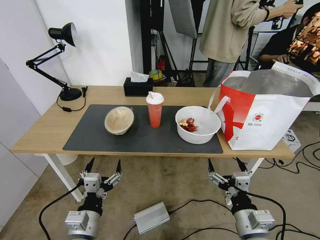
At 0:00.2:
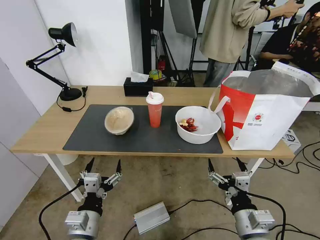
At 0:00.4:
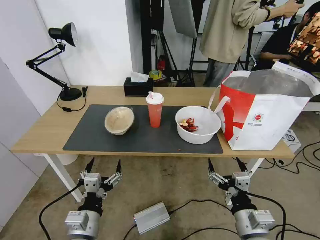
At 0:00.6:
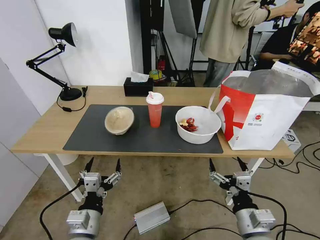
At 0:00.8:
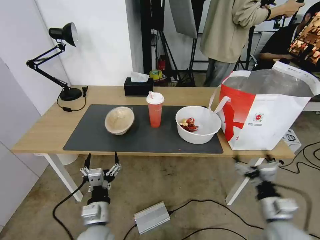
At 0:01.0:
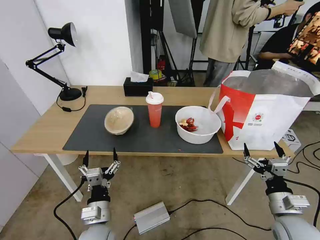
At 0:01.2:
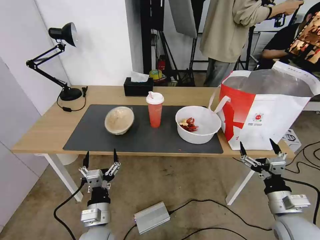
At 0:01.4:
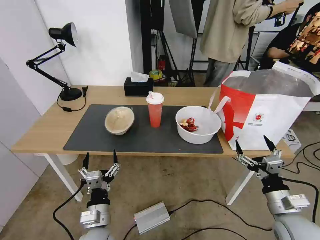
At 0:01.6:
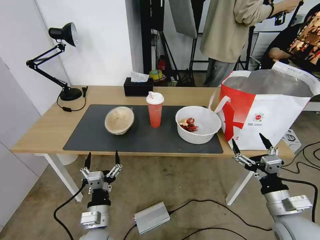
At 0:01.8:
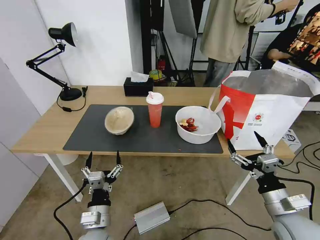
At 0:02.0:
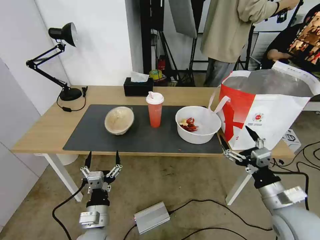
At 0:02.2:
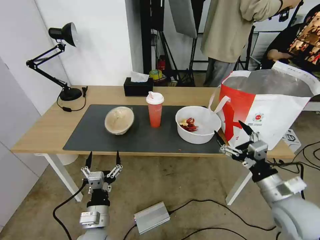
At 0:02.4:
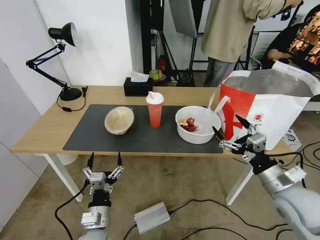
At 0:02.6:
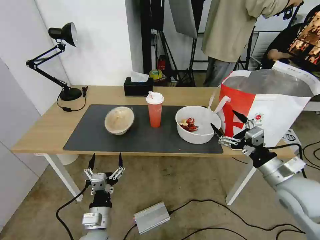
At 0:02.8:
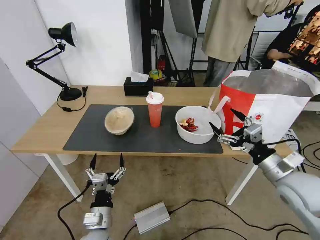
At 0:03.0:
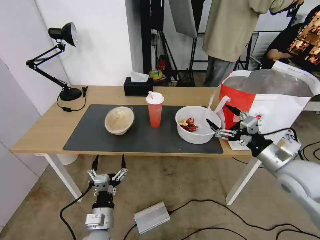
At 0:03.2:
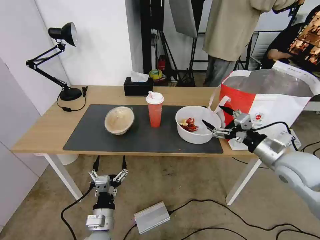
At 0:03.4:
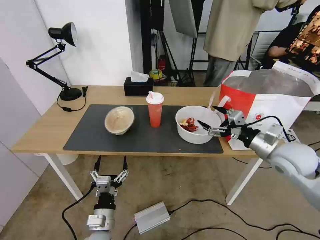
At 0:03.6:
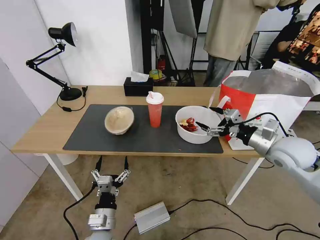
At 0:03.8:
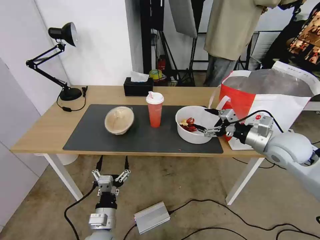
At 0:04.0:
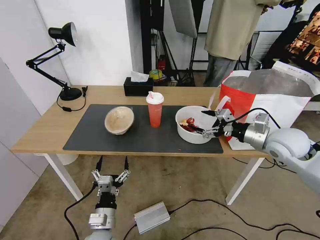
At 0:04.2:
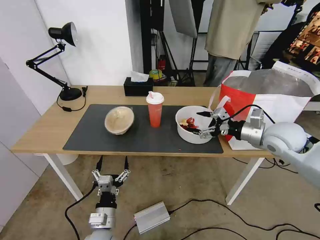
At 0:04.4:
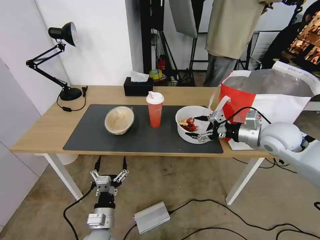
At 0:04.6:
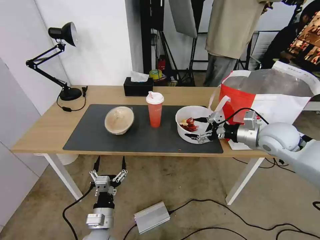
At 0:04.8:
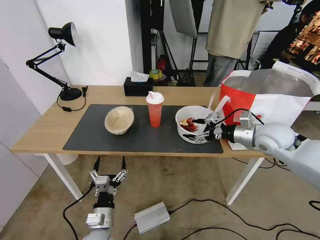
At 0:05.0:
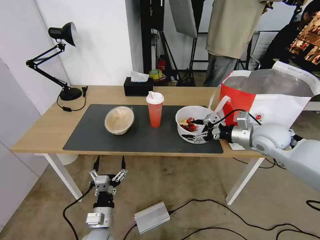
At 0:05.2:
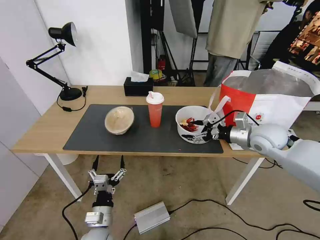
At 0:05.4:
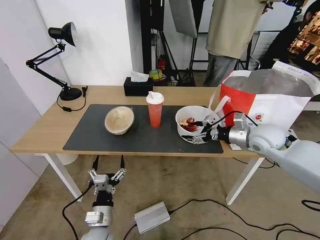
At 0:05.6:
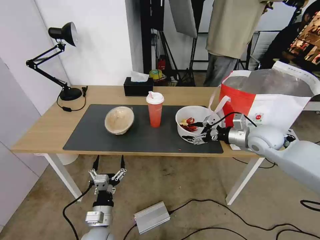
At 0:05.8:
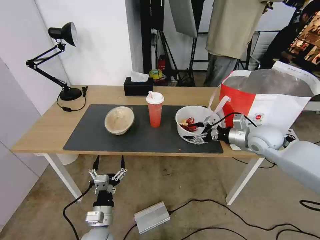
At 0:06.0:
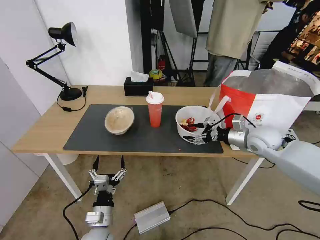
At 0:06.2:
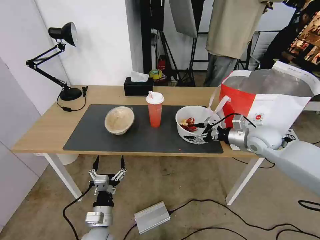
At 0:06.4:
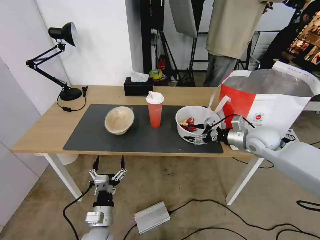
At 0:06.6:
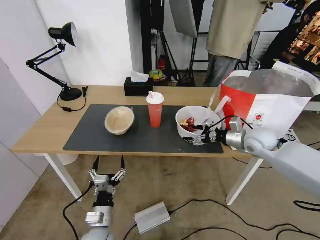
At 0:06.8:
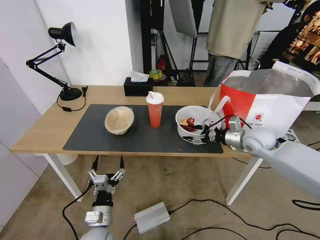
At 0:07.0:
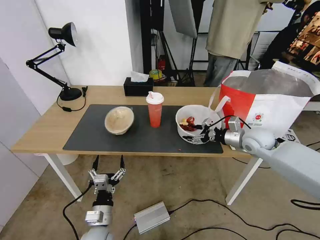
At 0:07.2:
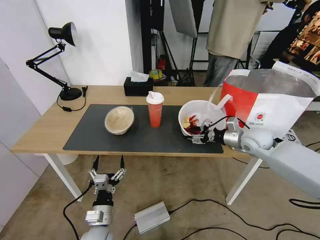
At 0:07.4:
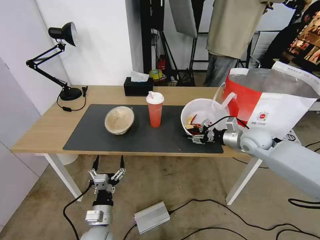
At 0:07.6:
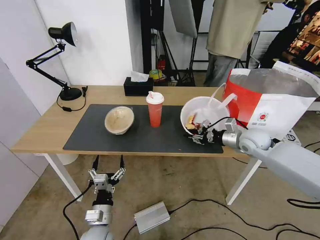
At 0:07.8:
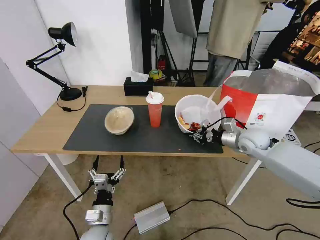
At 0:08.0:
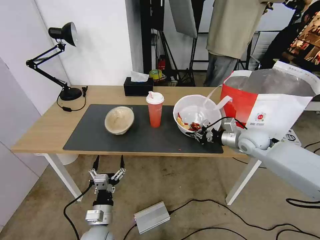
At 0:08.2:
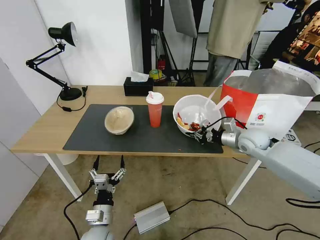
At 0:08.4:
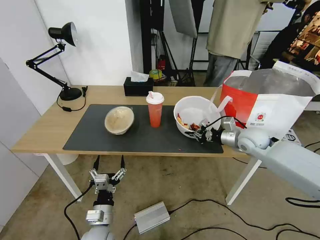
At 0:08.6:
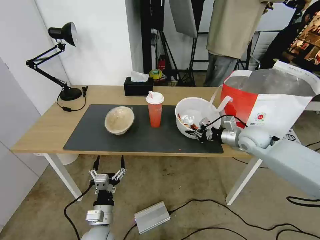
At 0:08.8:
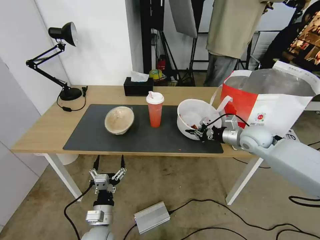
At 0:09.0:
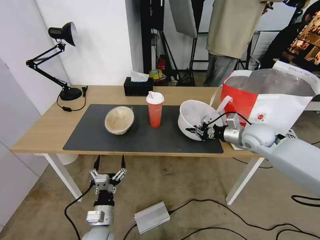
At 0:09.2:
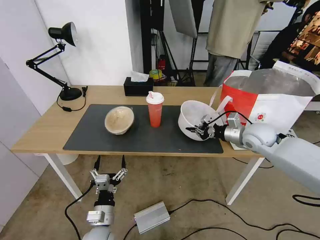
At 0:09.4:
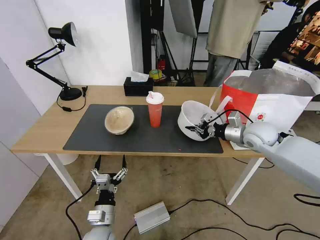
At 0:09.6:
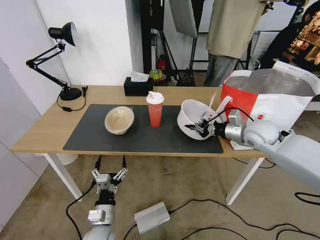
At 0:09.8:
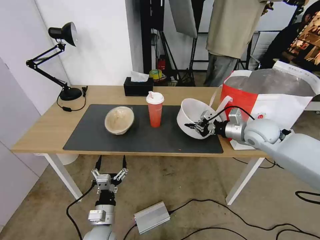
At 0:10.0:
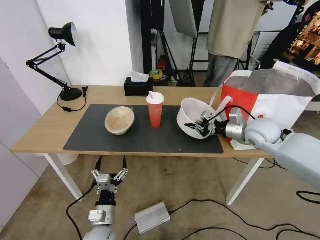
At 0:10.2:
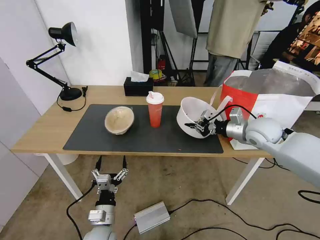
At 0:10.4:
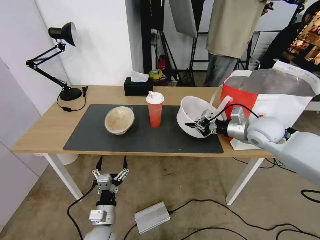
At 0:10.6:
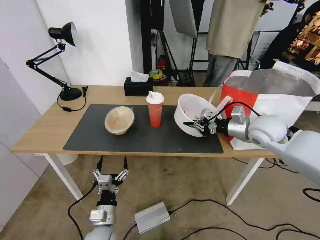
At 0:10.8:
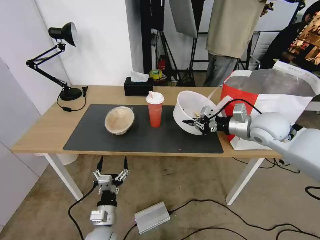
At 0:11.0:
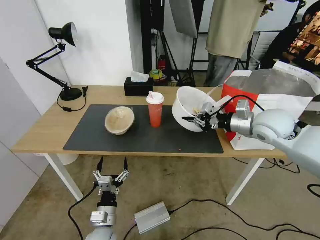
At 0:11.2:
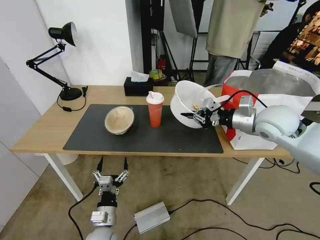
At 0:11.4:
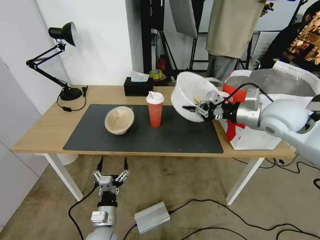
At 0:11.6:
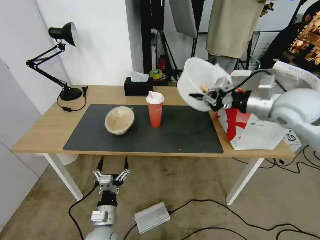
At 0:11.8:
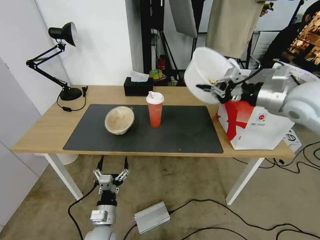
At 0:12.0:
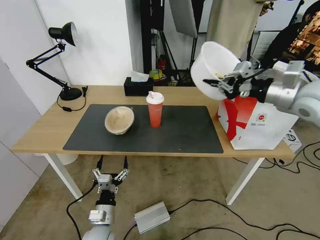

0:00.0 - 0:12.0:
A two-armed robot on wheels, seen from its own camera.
Task of the whole recording: Pick up the trash from the table and place it into the takeout bag.
0:01.6 - 0:03.0: The right gripper is displaced forward and upward by some 15 cm.
0:03.0 - 0:04.4: The right gripper heads forward, covering about 10 cm.
0:04.4 - 0:06.0: The right gripper shifts by some 5 cm.
0:06.0 - 0:07.6: The right gripper closes up.
0:07.6 - 0:09.0: There are only small adjustments of the grippers.
0:09.0 - 0:10.4: The right gripper changes place by roughly 5 cm.
0:10.4 - 0:12.0: The right gripper is displaced upward by approximately 15 cm.

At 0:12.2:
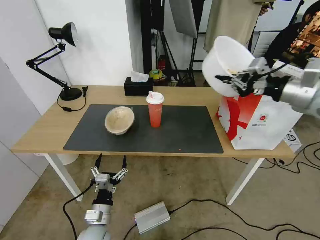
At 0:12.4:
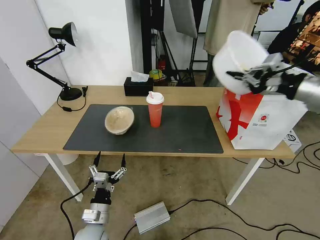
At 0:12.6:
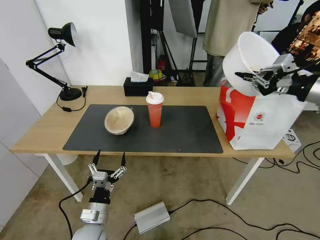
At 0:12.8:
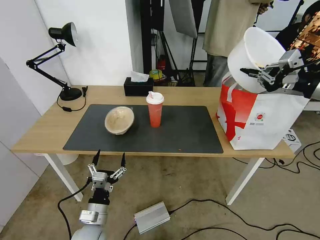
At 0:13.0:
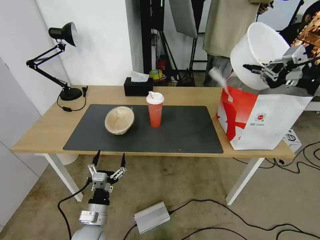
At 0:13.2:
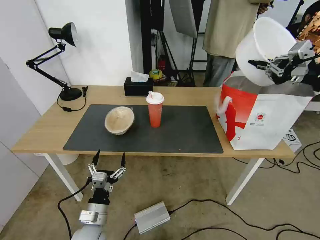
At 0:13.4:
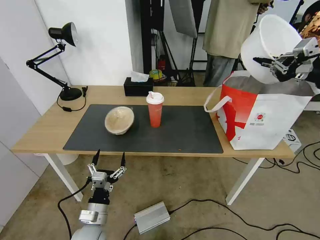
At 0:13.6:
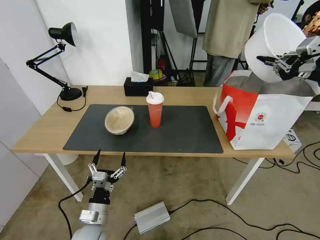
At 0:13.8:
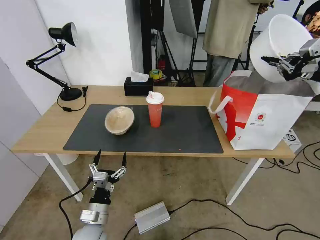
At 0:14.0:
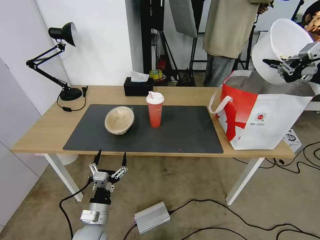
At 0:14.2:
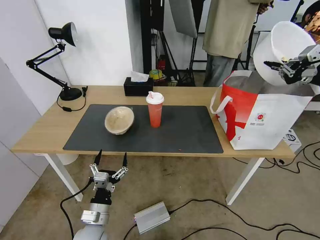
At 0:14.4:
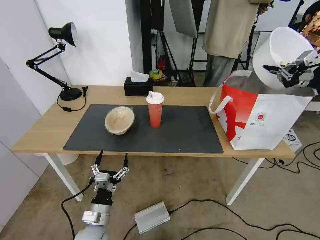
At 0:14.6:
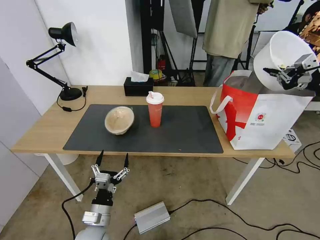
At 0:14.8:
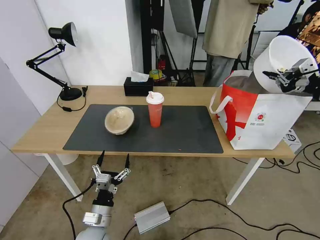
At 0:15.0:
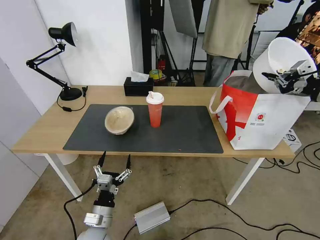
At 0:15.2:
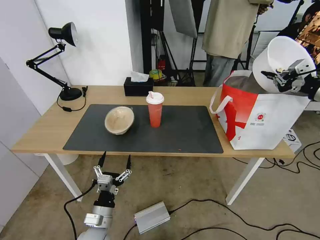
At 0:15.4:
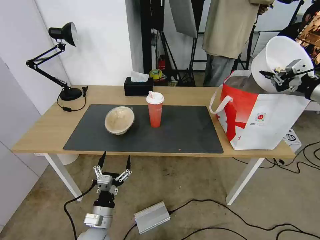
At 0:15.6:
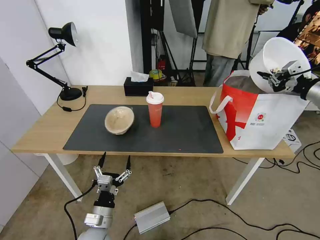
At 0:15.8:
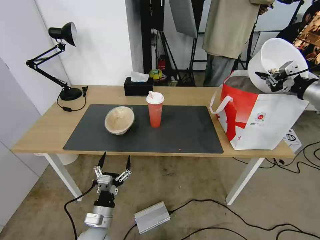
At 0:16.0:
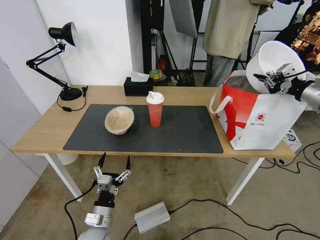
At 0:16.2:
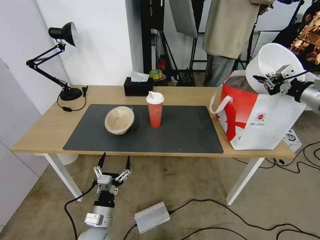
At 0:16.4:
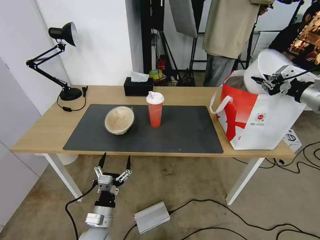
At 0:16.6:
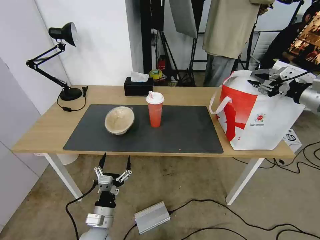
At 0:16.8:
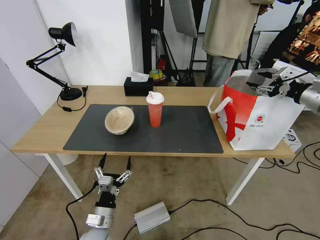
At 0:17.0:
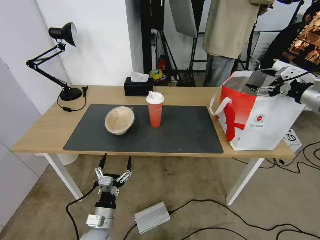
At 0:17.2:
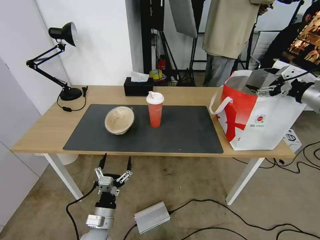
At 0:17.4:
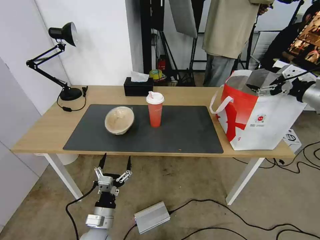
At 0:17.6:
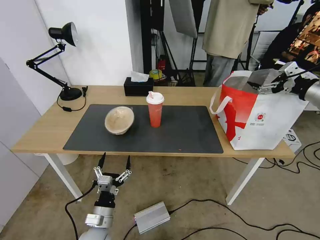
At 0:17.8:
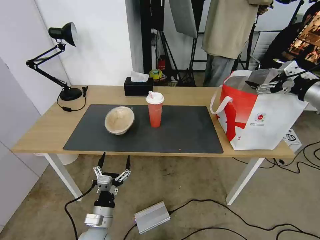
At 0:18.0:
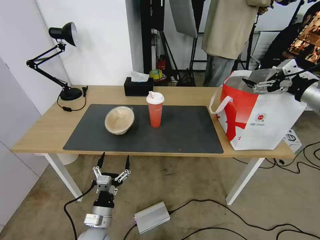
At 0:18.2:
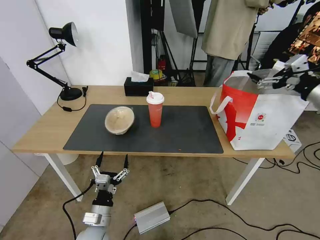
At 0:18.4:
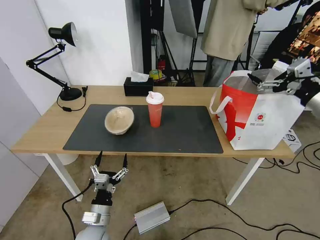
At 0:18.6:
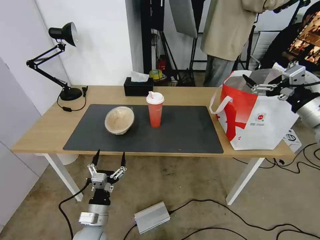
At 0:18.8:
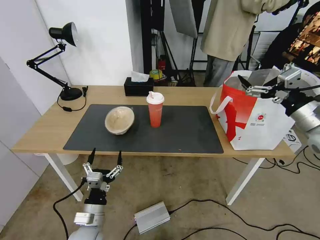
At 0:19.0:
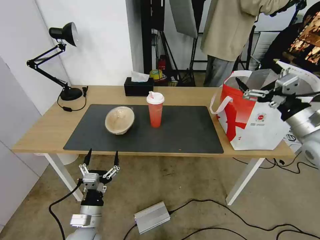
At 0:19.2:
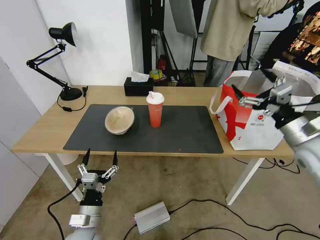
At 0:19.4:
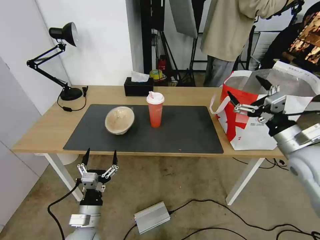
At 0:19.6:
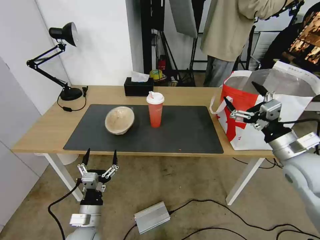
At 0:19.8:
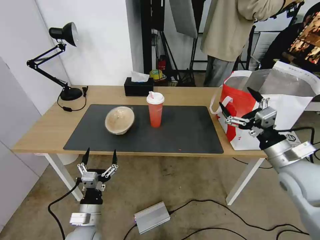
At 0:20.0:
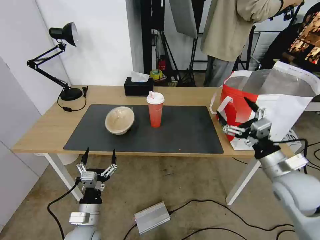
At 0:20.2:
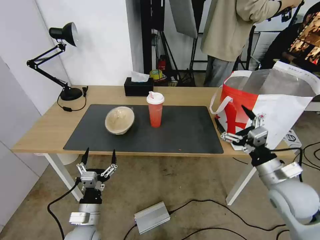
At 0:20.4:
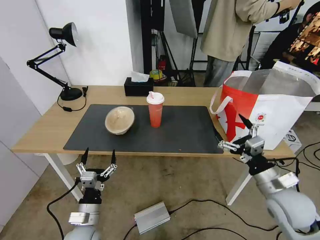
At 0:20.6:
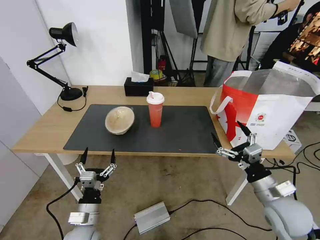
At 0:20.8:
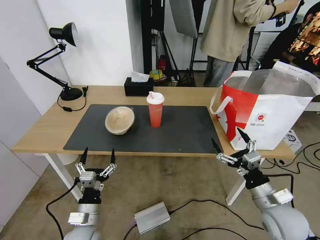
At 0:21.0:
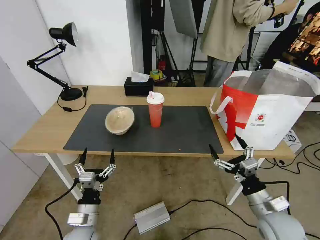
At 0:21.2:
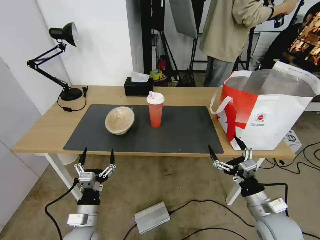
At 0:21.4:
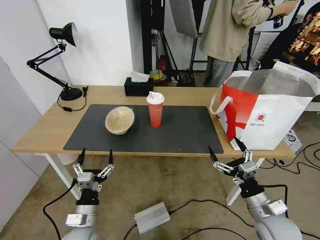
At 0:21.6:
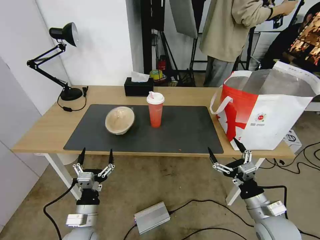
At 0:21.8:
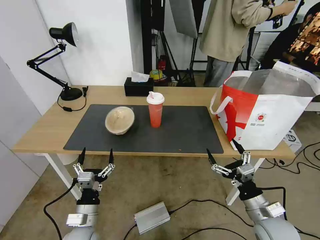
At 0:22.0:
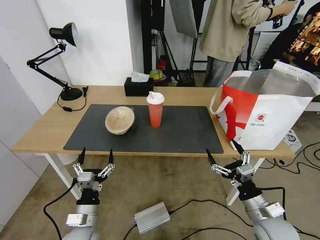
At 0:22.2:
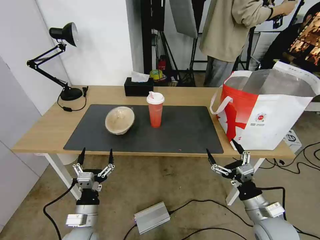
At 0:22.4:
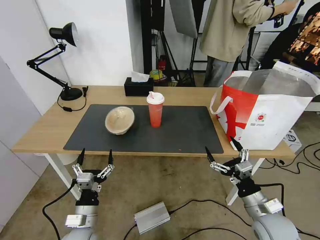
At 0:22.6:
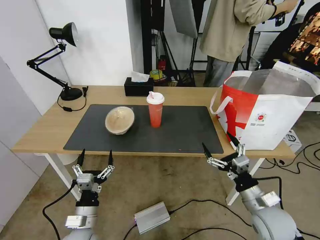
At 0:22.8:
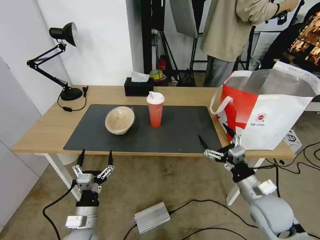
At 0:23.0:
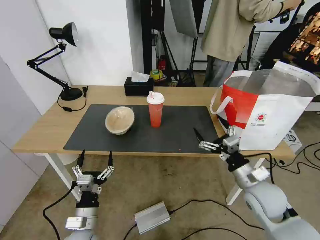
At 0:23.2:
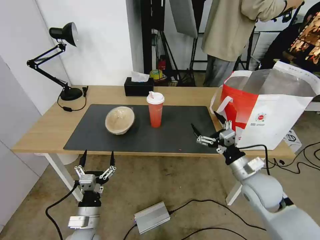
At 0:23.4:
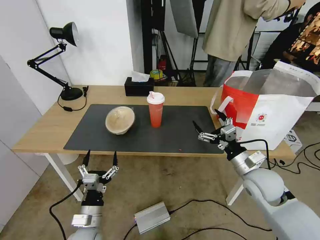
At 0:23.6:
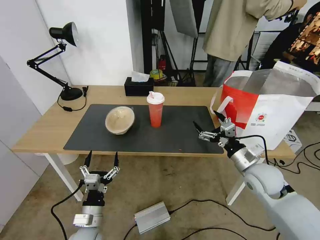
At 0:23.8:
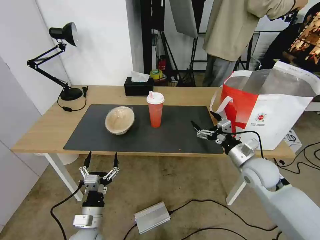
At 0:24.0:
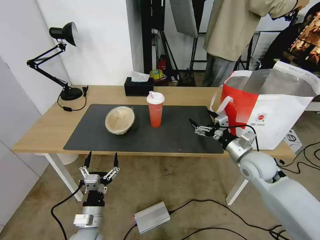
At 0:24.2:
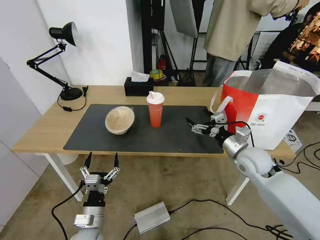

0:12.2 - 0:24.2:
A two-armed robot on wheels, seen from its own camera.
Task of the whole recording: Pick up the trash from the table and place it into the takeout bag.
0:12.2 - 0:13.8: The right gripper is displaced to the right by approximately 10 cm.
0:13.8 - 0:15.2: The right gripper heads downward, covering roughly 5 cm.
0:15.2 - 0:16.6: The right gripper opens up.
0:16.6 - 0:18.2: The right gripper goes some 5 cm backward, and opens.
0:18.2 - 0:19.8: The right gripper heads downward, to the left and backward, covering some 20 cm.
0:19.8 - 0:21.2: The right gripper goes some 15 cm downward and backward.
0:21.2 - 0:22.6: The grippers move only a little.
0:22.6 - 0:24.2: The right gripper travels forward by roughly 15 cm.
